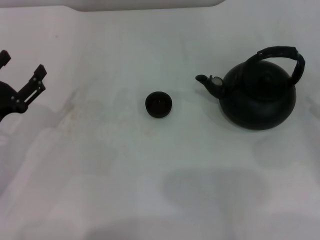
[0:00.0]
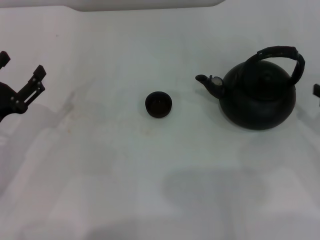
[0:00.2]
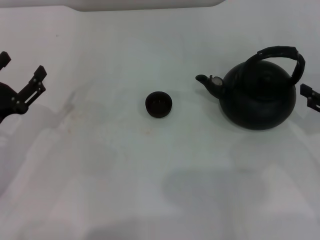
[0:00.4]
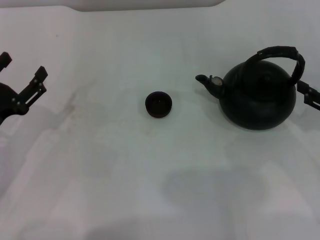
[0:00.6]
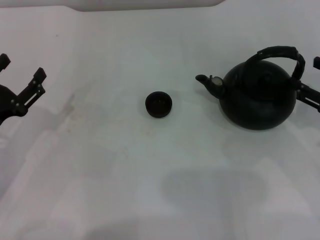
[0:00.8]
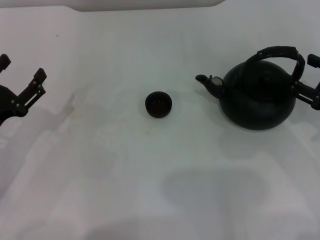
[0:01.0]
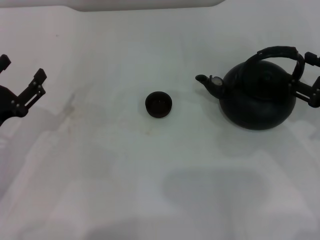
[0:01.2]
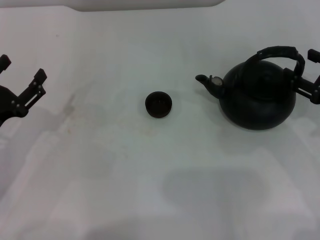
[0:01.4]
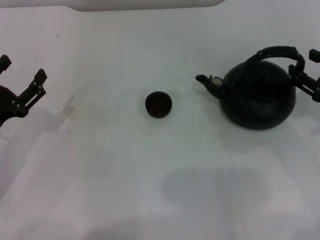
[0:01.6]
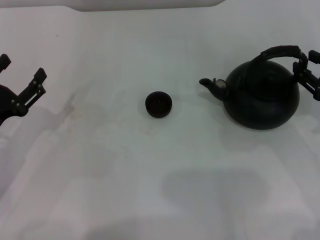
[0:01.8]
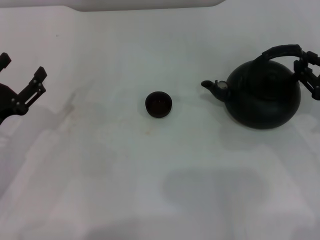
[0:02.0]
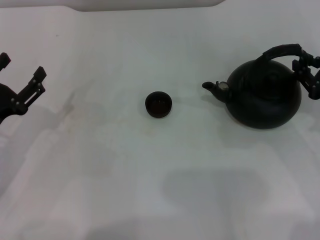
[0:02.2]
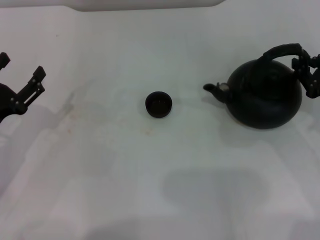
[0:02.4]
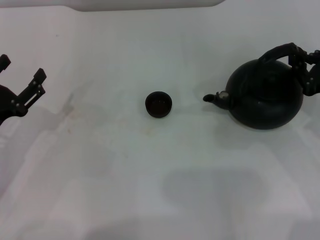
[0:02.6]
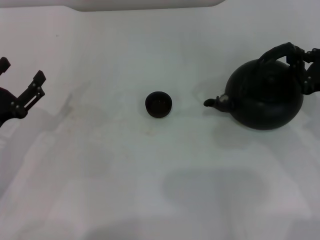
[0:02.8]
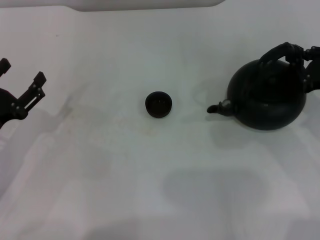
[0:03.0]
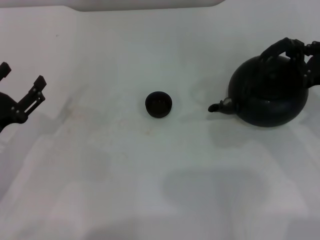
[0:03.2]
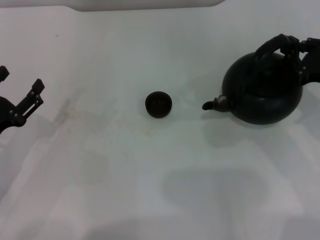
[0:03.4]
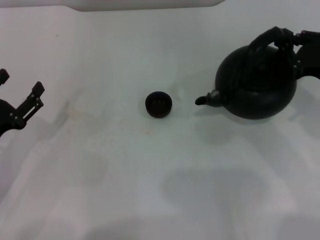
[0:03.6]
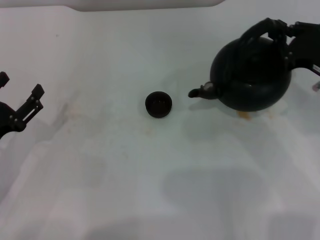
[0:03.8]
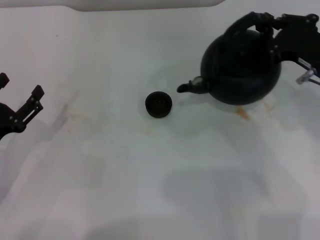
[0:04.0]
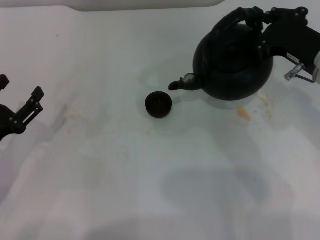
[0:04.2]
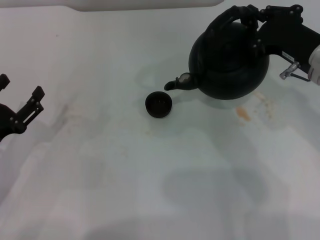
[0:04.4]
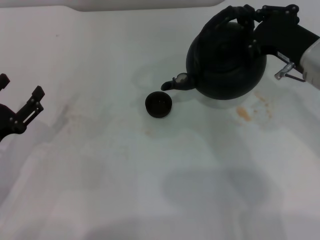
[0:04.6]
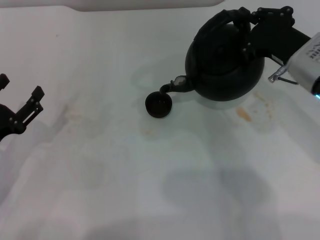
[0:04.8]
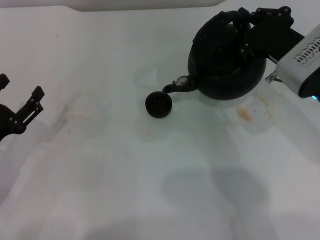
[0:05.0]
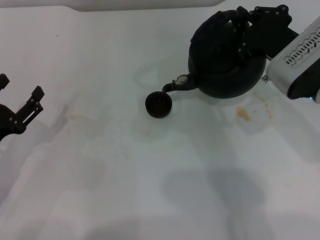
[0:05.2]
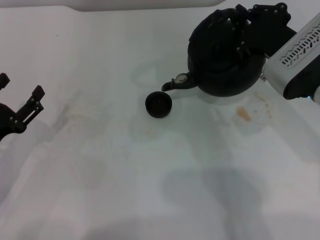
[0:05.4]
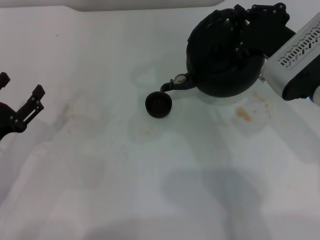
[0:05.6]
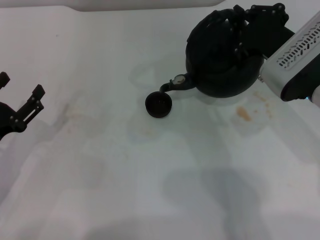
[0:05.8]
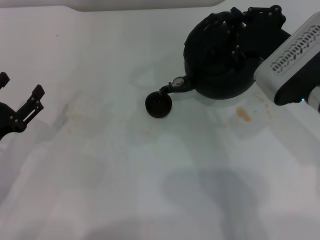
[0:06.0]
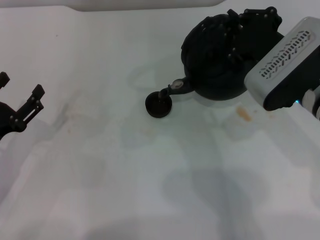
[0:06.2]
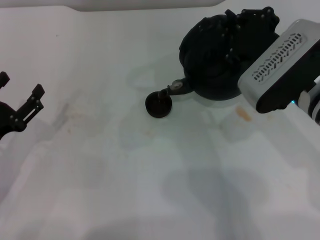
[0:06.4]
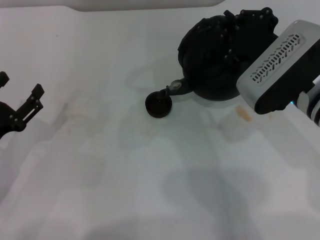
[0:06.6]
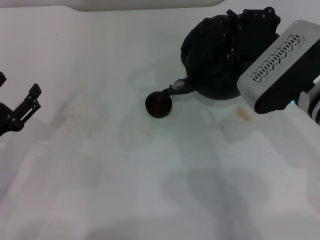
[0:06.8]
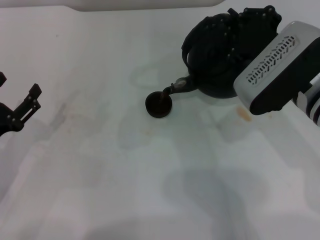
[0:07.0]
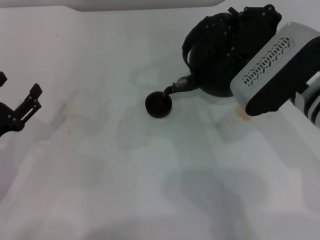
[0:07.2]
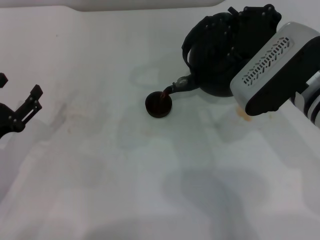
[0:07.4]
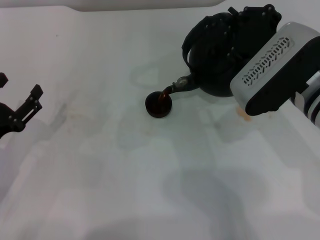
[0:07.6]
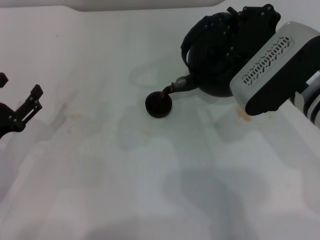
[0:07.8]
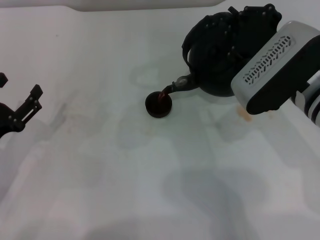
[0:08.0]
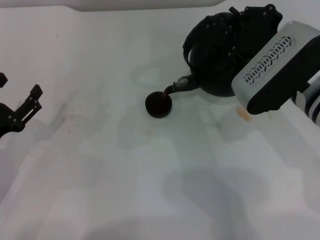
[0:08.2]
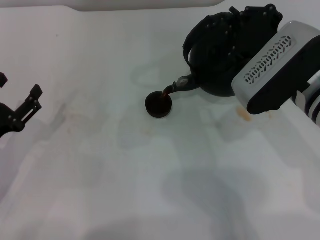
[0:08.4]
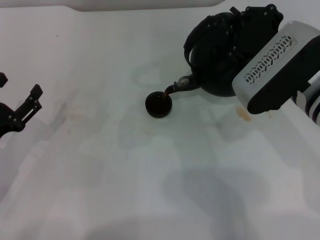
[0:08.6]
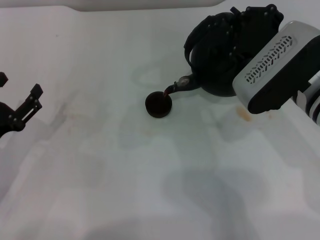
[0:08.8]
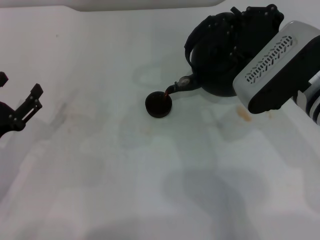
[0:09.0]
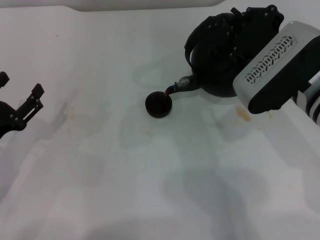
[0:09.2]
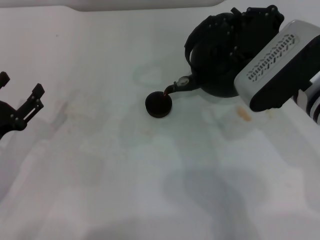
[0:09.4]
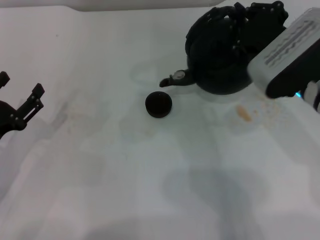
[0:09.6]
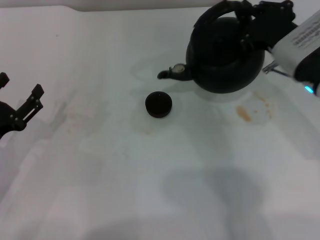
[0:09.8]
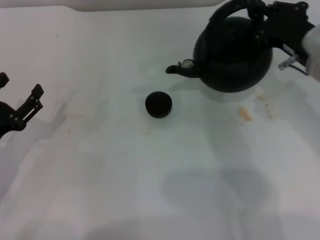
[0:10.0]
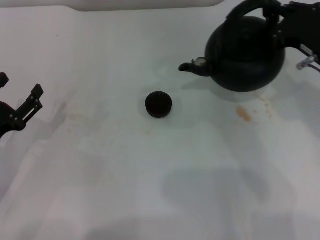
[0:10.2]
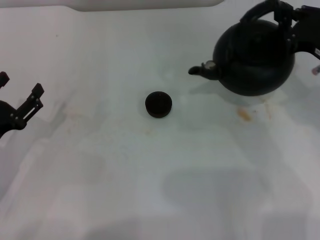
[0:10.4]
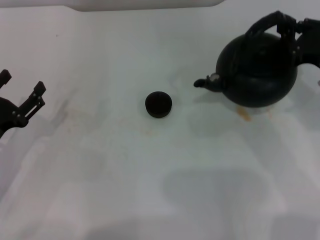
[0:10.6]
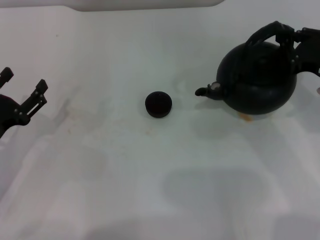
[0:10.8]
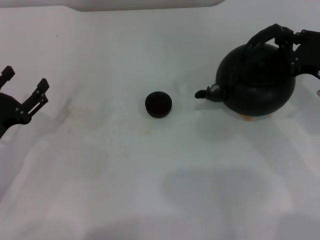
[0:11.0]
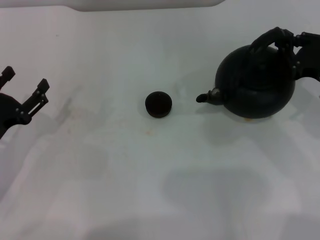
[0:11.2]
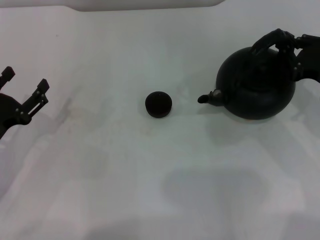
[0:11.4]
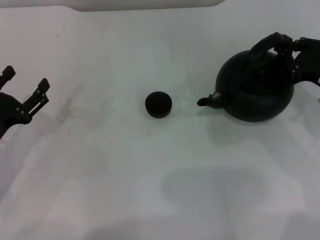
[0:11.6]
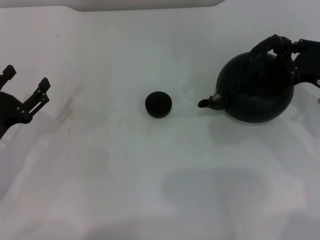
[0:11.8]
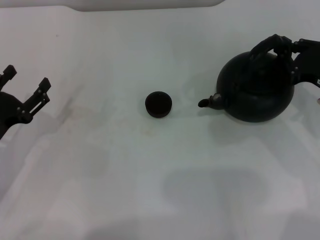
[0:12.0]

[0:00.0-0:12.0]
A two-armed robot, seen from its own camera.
Task of the whole recording: Grasp the handle of the teapot with one hand and pour tea into the teacup.
Step, 0:00.0 to 0:04.2: Pick up the teapot with the right gripper.
Step, 0:04.4 to 0:09.8: Pour tea into the teacup with the right gripper.
0:00.0 to 0:01.6: The right gripper goes about 5 cm to the left.
0:01.6 to 0:03.0: The right gripper closes.
0:03.0 to 0:04.4: The right gripper goes approximately 10 cm to the left.
0:04.4 to 0:06.0: The grippers stay close to where they were, moving slightly.
0:06.0 to 0:07.6: The grippers make only small movements.
0:07.6 to 0:09.0: Neither gripper changes place.
0:09.0 to 0:10.4: The right gripper heads to the right, covering approximately 10 cm.
0:10.4 to 0:12.0: The right gripper moves approximately 5 cm.

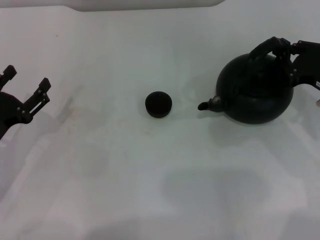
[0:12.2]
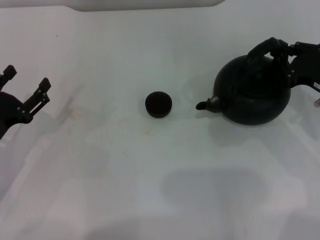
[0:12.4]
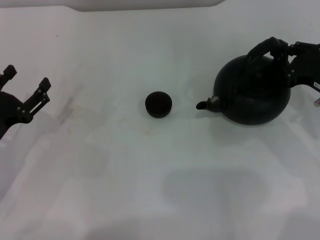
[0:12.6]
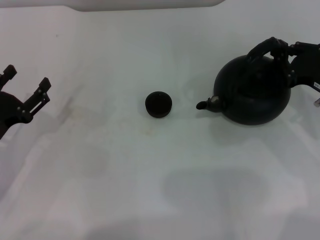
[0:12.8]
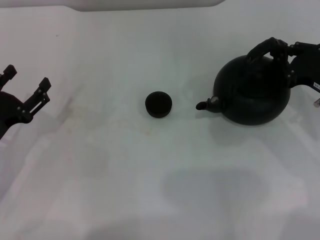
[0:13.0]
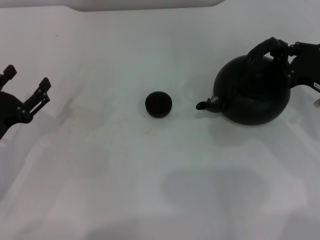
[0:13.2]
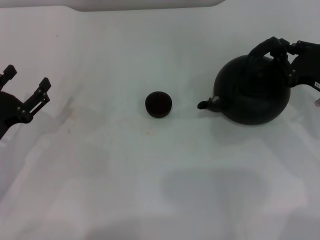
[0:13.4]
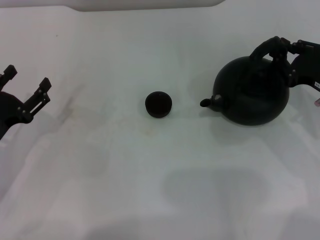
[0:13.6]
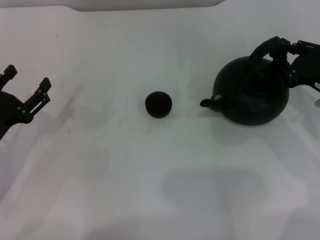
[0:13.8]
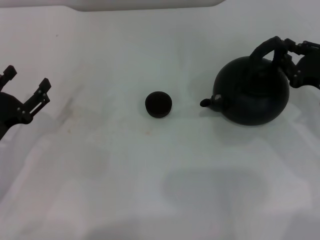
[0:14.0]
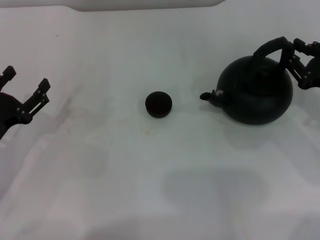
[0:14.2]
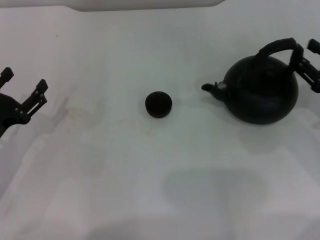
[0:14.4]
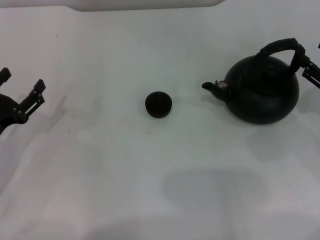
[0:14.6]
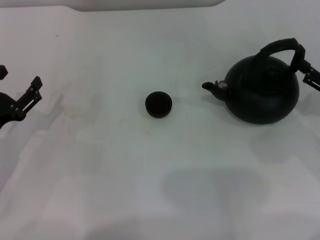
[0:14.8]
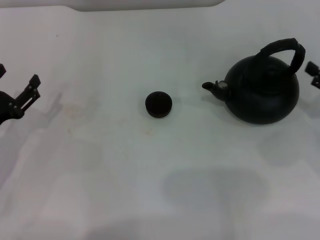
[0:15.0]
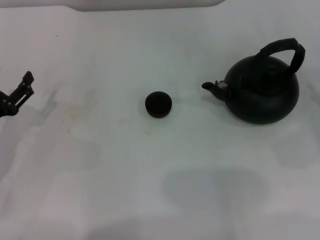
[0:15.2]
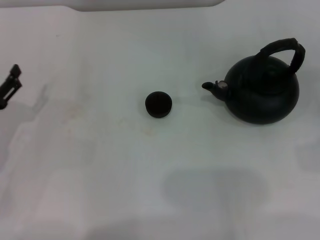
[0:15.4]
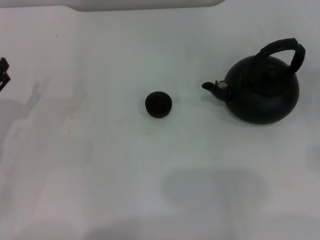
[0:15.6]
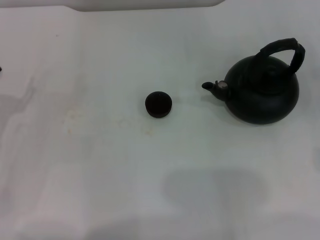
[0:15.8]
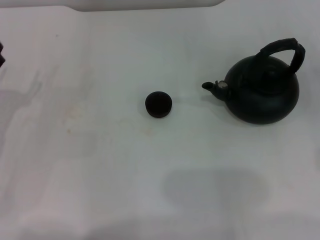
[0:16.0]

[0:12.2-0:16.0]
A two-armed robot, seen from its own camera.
Task of the whole recording: Grasp the handle of the teapot with one hand and pour tea into the teacup.
Step, 0:12.2 to 0:14.8: Put down the teapot with the right gripper.
0:12.2 to 0:13.4: Neither gripper changes place.
0:13.4 to 0:14.8: The right gripper goes about 5 cm to the right, and opens up.

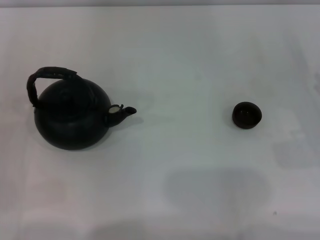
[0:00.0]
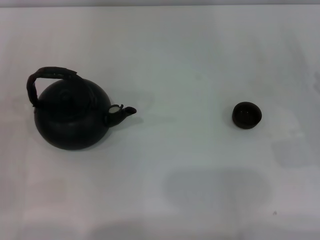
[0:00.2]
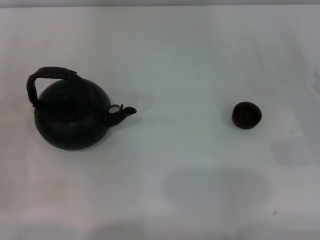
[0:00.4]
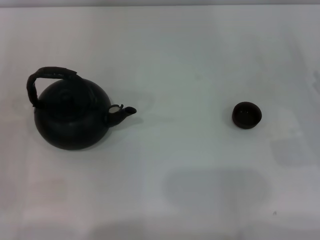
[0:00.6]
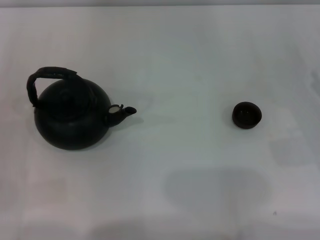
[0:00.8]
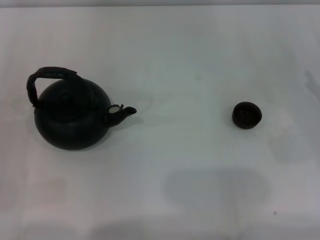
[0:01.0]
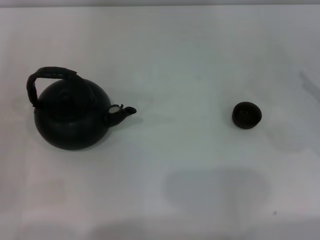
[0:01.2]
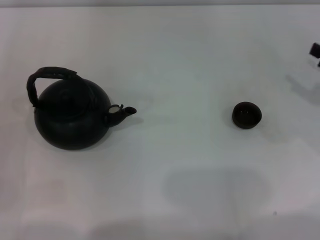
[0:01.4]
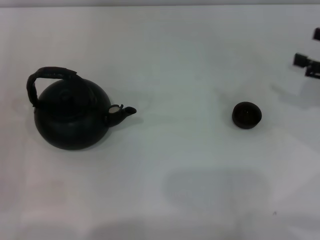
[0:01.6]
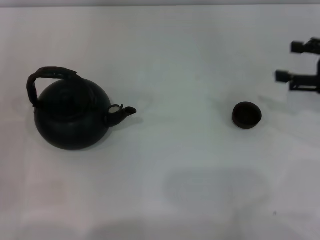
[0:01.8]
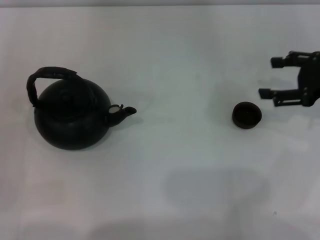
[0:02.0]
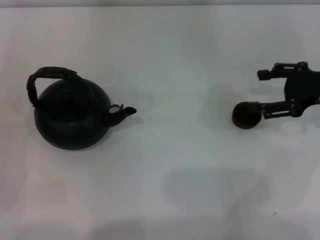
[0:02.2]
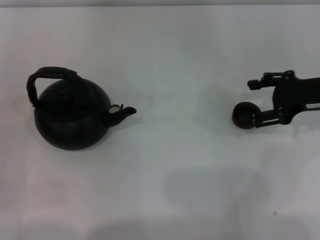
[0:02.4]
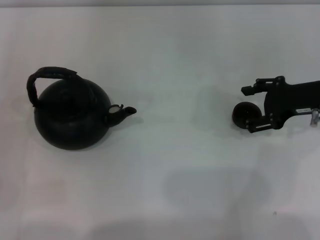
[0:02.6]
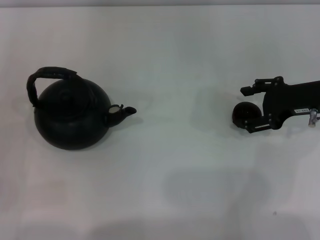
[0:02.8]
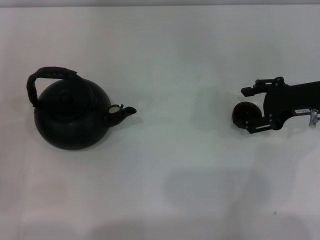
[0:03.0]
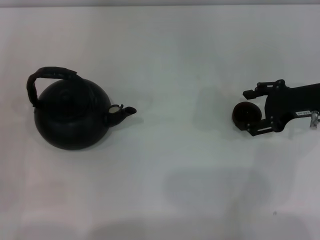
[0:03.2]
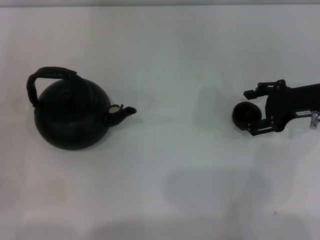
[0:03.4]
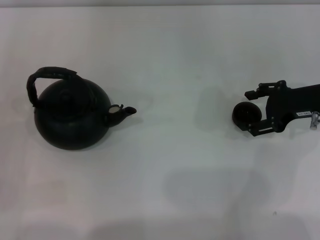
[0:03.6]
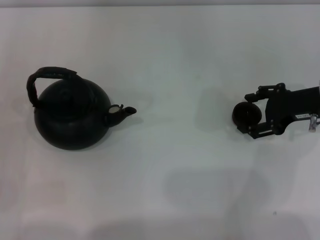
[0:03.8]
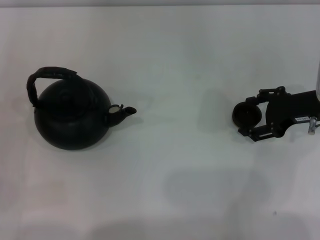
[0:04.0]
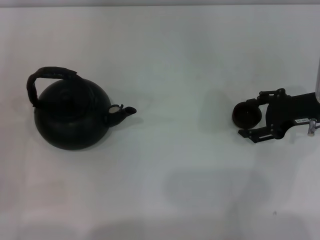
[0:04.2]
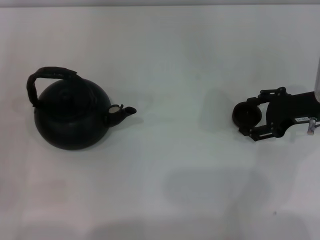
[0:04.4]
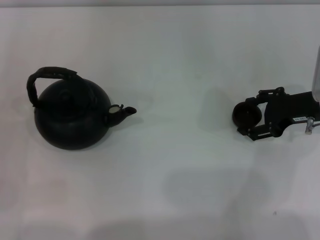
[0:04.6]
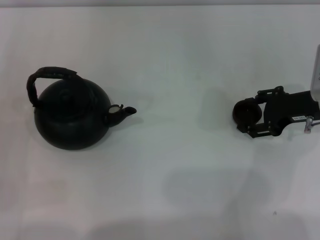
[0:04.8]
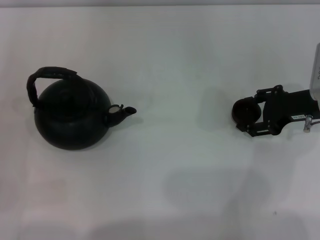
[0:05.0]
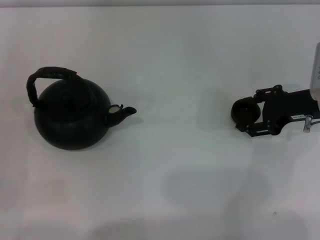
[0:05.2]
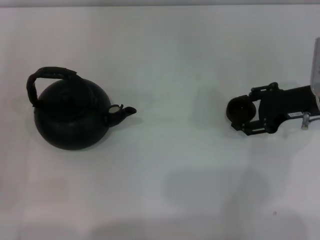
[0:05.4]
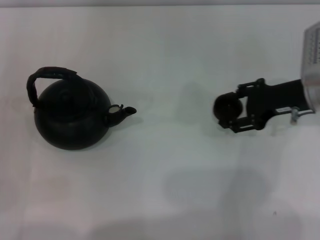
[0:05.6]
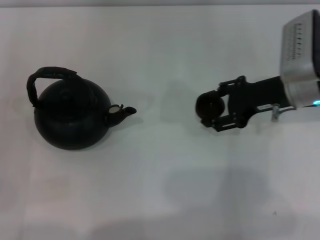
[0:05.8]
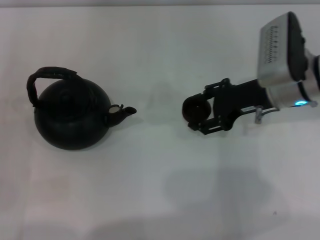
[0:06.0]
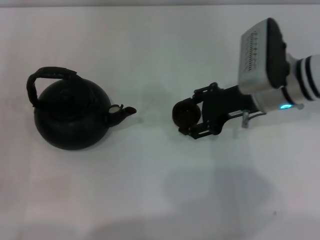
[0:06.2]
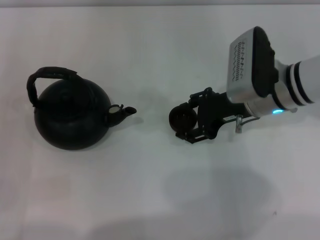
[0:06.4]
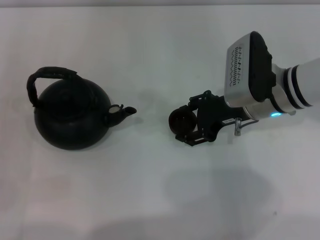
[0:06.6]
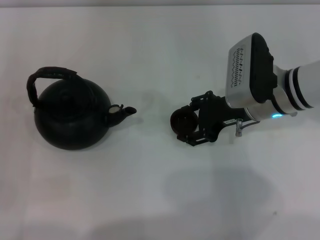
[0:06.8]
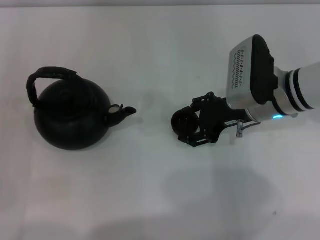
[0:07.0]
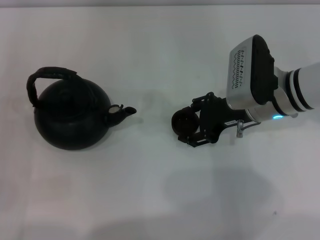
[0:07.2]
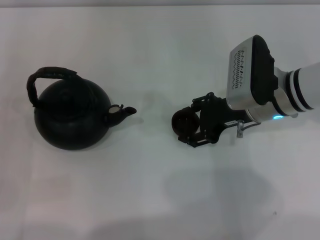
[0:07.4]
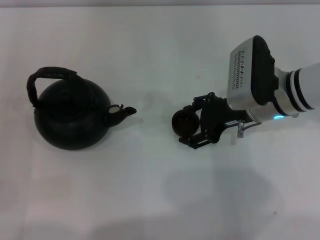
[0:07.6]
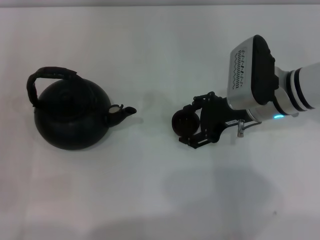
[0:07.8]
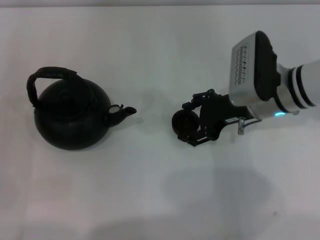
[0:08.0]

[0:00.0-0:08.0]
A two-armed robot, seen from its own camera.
Task of the whole recording: Grasp the handle of the teapot with one hand and pour tea into the teacup.
Step, 0:00.0 to 0:05.4: Pick up the teacup with the right gripper.
0:00.0 to 0:01.6: The right gripper heads upward and forward, covering approximately 10 cm.
0:01.6 to 0:03.2: The right gripper goes some 10 cm to the left.
0:03.2 to 0:04.8: The grippers stay close to where they were, moving slightly.
0:04.8 to 0:06.4: The right gripper goes roughly 10 cm to the left, and closes.
0:06.4 to 0:08.0: The right gripper opens up.
